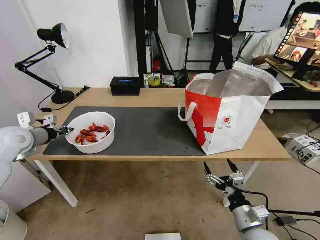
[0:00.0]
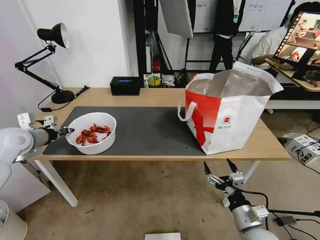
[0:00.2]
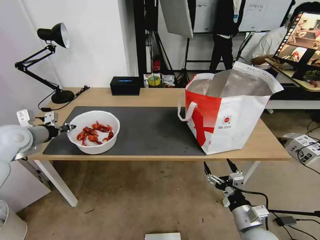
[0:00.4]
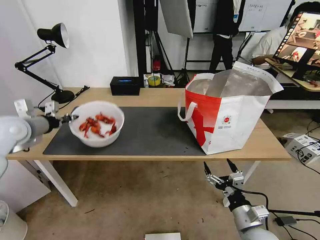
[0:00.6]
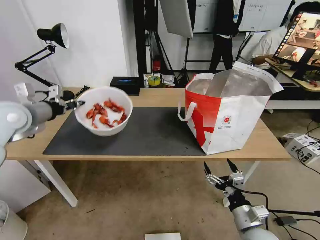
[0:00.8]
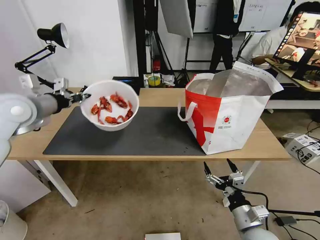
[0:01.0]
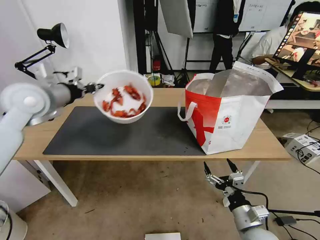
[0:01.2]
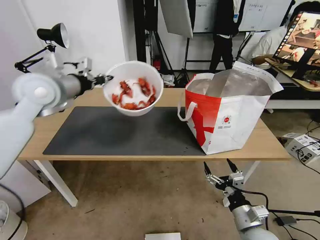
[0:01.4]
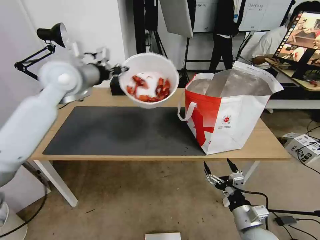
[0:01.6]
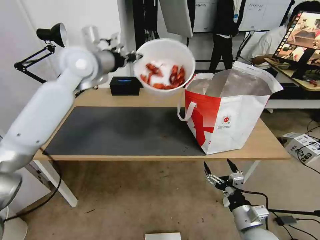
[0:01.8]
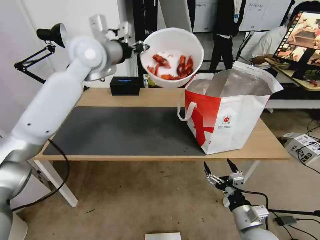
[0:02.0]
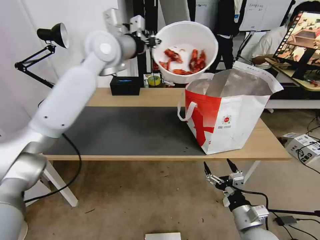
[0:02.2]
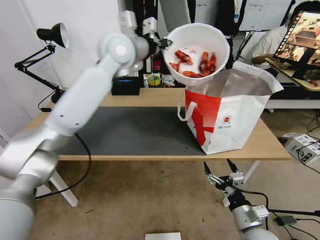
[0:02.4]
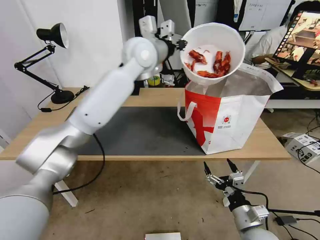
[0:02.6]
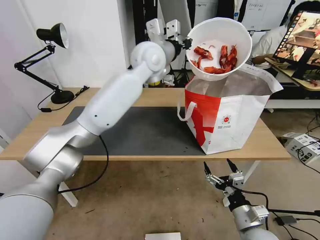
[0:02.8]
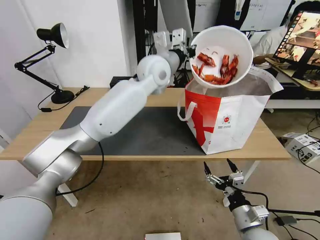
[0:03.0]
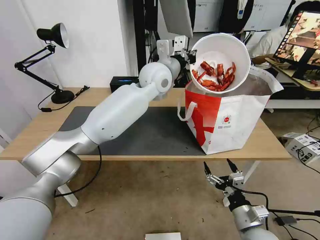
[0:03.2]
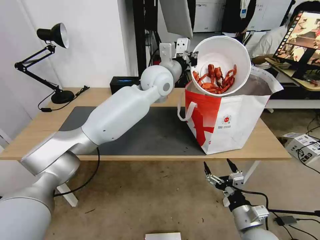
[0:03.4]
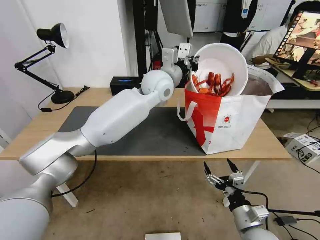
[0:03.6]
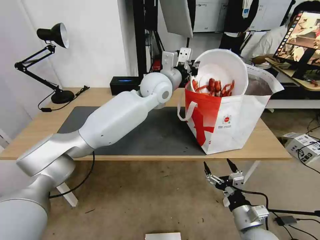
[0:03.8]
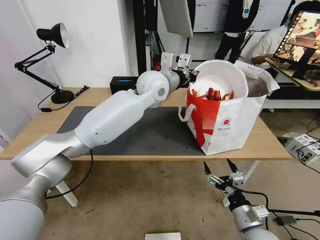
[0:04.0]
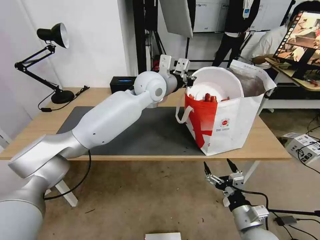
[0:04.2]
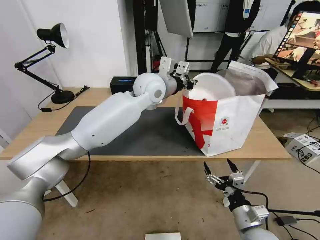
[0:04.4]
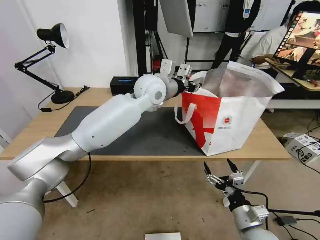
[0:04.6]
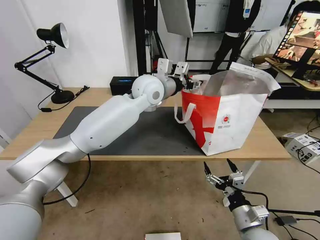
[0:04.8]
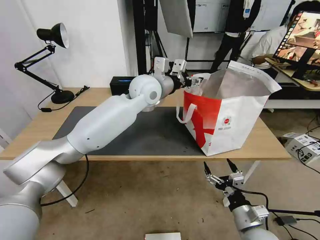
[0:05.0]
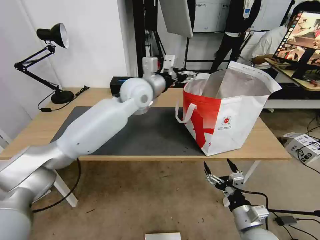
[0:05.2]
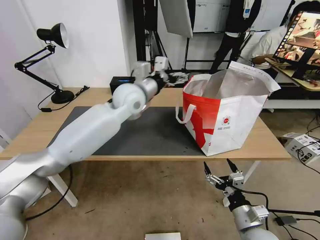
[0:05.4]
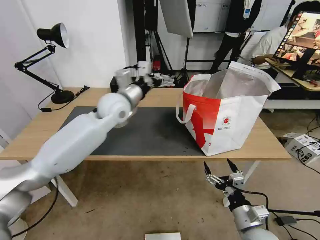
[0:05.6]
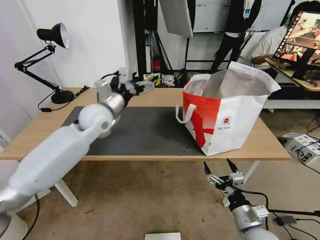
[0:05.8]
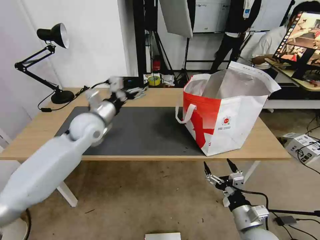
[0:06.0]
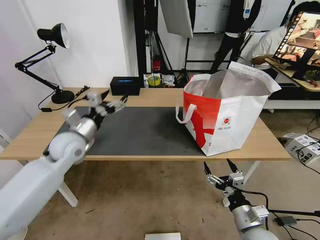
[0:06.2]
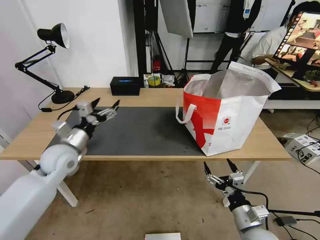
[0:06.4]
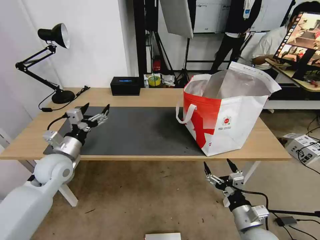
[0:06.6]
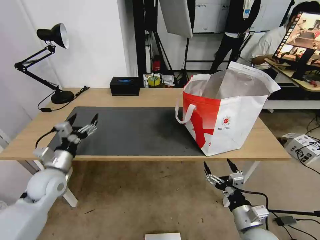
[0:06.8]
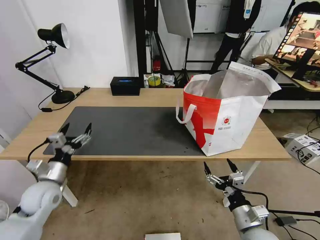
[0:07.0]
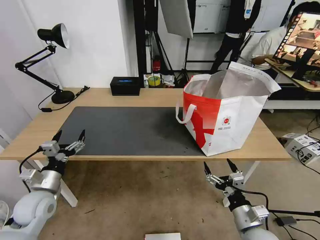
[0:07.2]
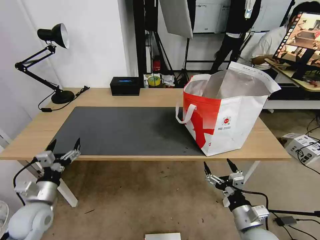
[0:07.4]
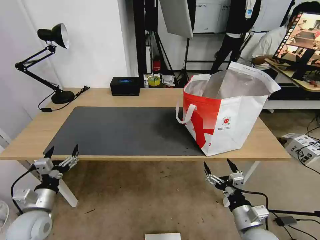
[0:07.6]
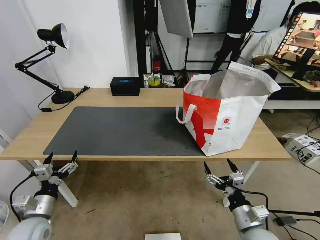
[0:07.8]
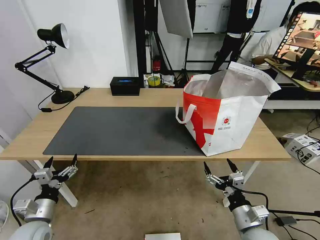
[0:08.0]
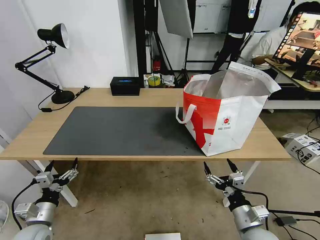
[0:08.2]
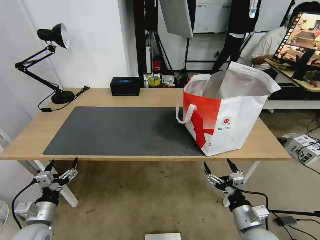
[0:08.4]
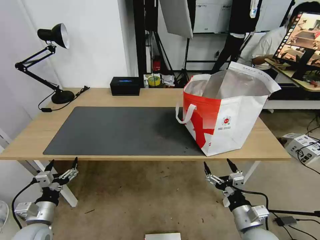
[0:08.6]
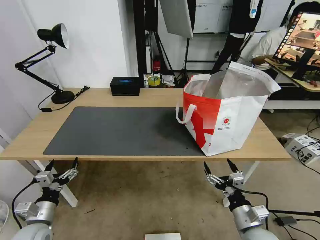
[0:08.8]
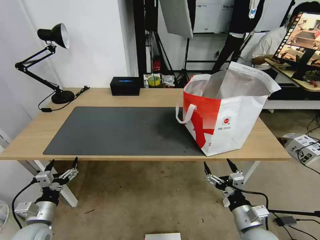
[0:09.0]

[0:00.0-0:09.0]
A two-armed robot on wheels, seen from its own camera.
Task of the whole recording: Pick up the trash from the table and place it into the takeout bag.
0:00.0 to 0:01.6: The left gripper is displaced to the right and upward by roughly 25 cm.
0:01.6 to 0:03.0: The left gripper travels to the right by roughly 25 cm.
0:04.4 to 0:06.0: The left gripper heads to the left and downward, covering about 20 cm, and opens its fingers.
0:06.0 to 0:07.6: The left gripper heads backward, downward and to the left, covering approximately 35 cm.
0:07.6 to 0:09.0: There are only small adjustments of the grippers.

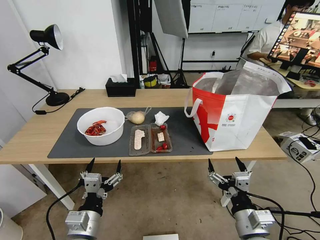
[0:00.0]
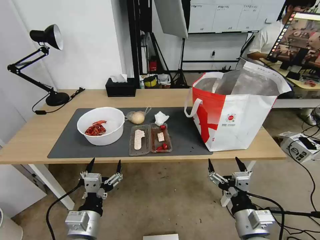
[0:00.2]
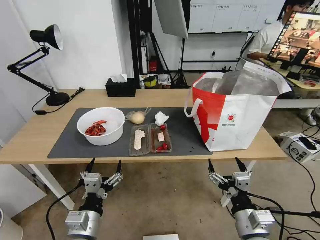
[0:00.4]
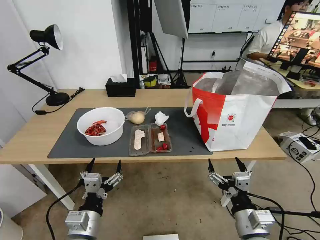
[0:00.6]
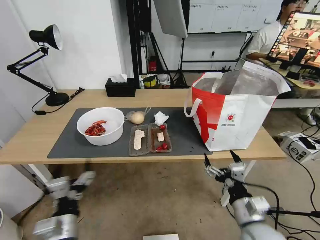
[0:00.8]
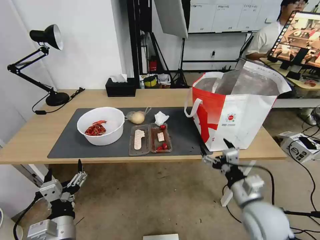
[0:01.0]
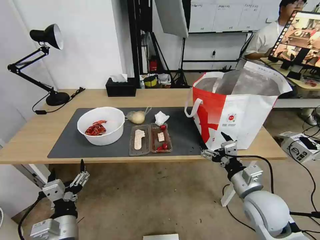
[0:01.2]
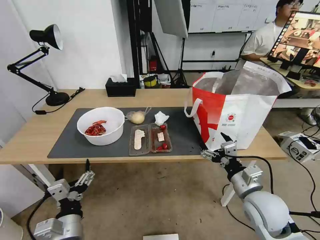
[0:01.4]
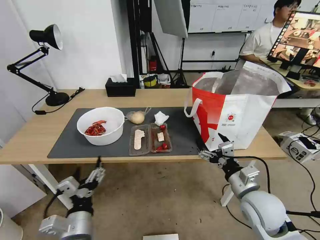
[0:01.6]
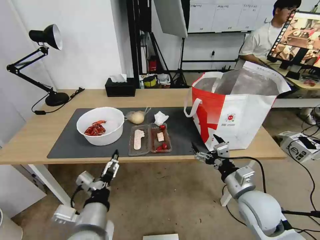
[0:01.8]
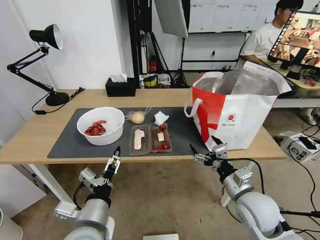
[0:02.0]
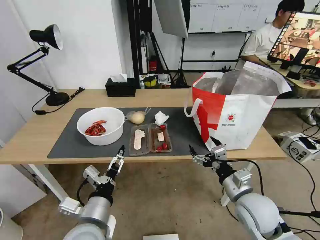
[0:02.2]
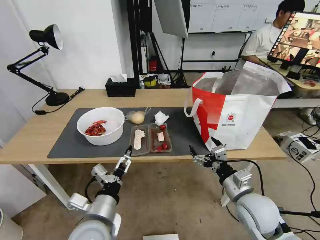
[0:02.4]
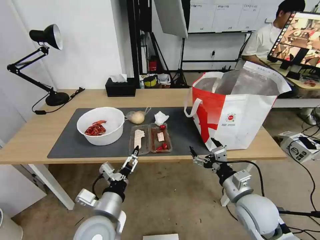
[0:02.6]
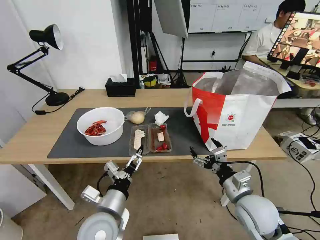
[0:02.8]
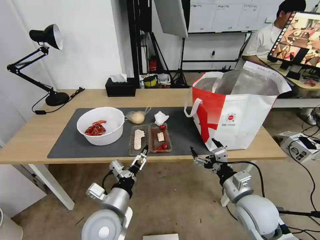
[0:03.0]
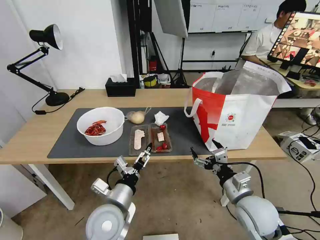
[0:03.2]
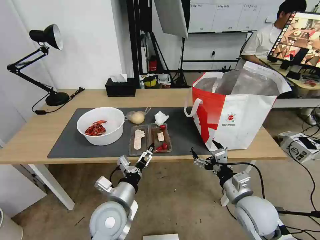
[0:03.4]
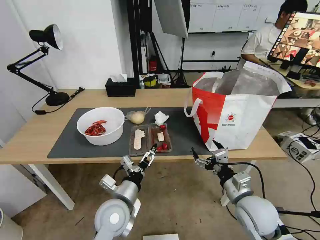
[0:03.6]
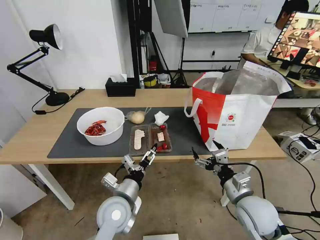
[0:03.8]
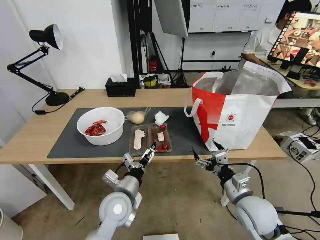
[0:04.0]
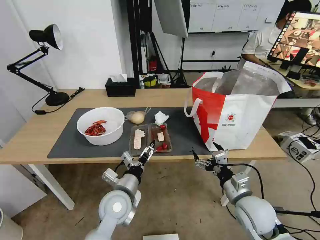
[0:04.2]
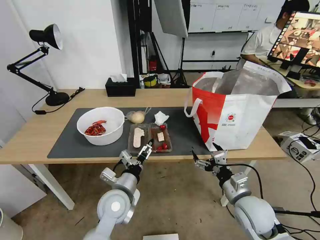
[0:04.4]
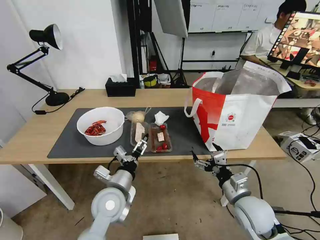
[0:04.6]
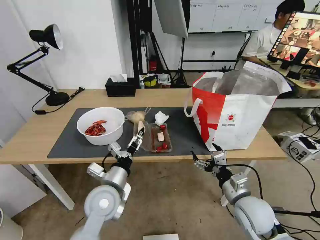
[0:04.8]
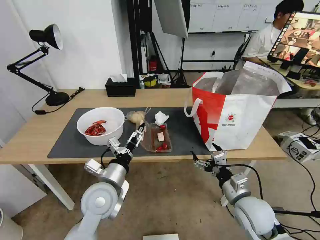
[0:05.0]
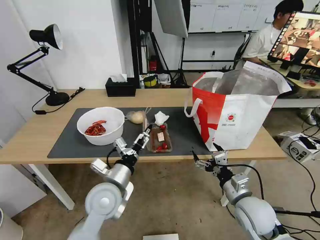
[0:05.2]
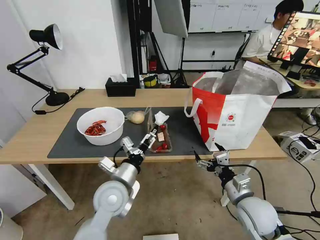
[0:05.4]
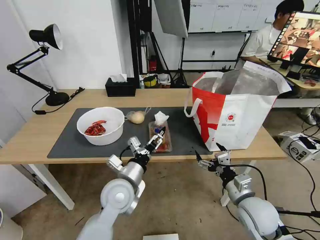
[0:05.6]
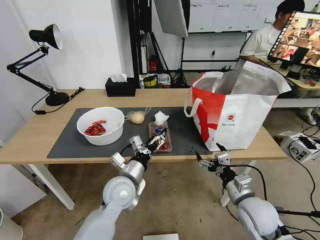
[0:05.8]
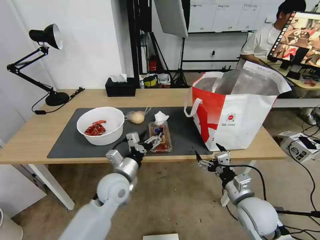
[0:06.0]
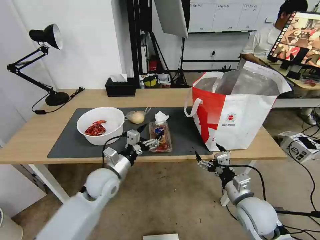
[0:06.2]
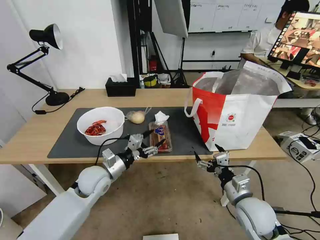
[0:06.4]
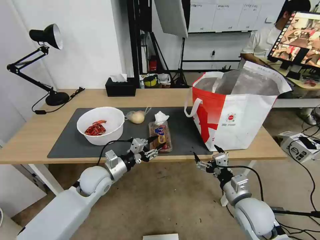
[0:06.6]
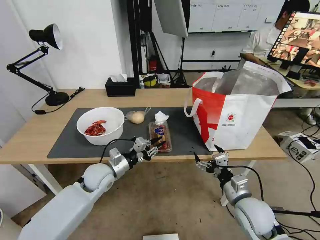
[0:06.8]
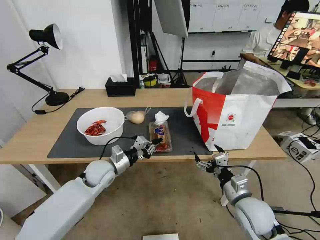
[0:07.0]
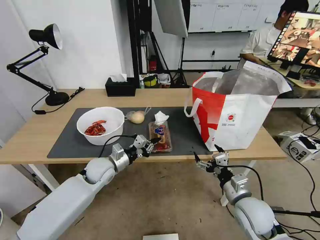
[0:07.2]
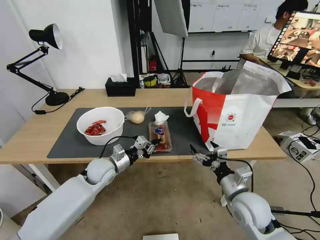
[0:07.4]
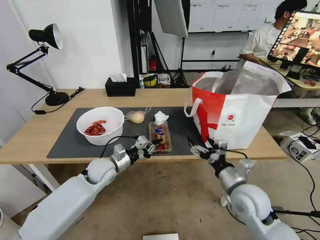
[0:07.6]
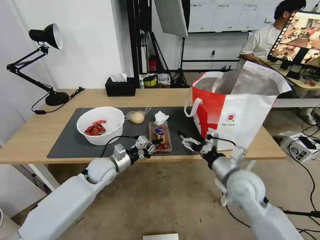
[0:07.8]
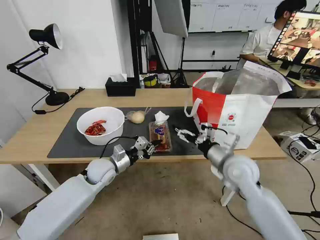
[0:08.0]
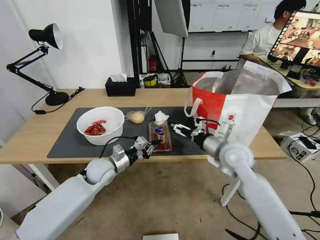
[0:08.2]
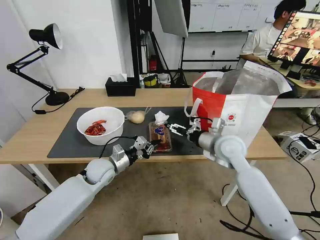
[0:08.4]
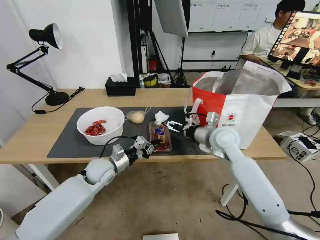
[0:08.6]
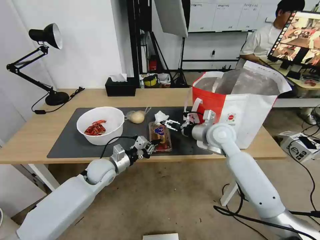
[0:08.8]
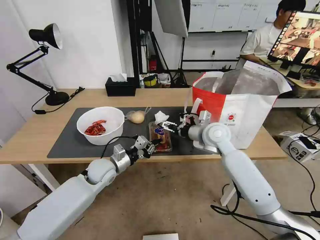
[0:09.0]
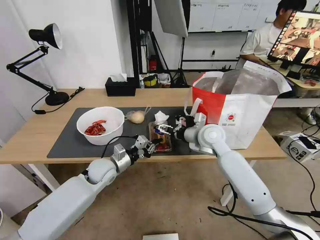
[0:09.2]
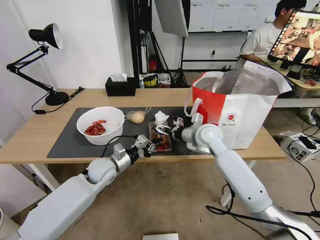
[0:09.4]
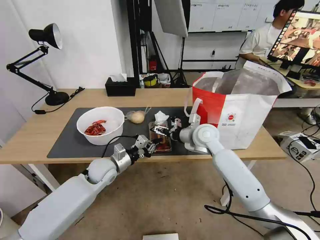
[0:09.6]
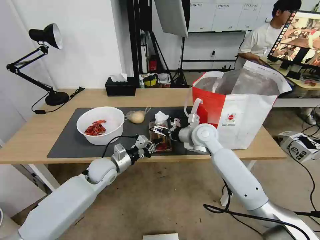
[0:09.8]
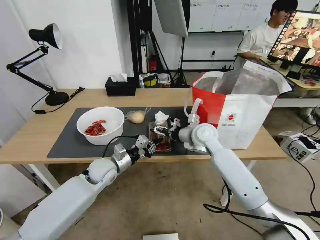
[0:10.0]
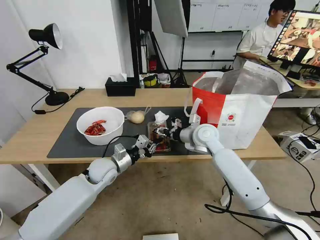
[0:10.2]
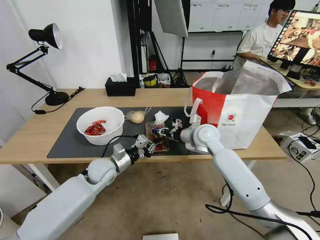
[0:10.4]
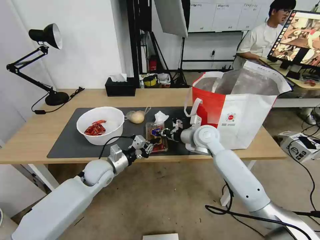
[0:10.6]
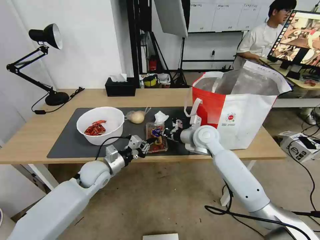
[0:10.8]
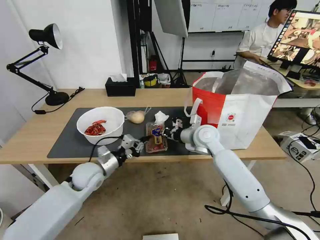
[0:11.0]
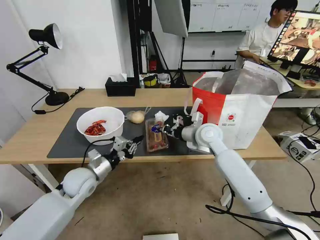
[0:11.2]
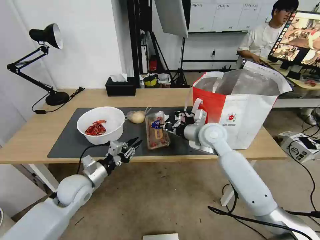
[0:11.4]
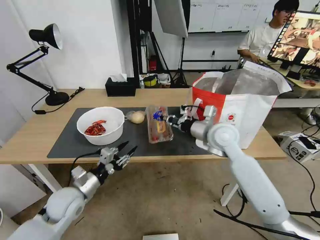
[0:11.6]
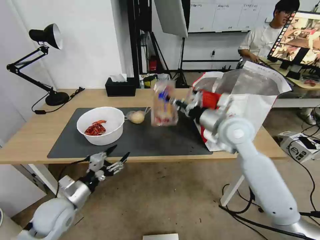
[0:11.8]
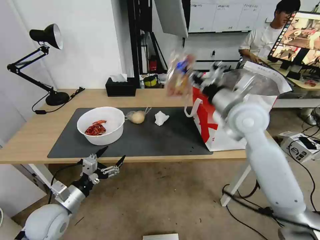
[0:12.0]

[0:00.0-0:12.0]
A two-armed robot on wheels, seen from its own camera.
Task of the whole recording: Pick up the trash from the table and place it into the takeout bag.
0:01.6 to 0:03.0: The left gripper goes about 5 cm forward.
0:03.0 to 0:04.4: The left gripper goes about 5 cm forward.
0:04.4 to 0:06.0: The left gripper moves about 5 cm.
0:06.0 to 0:07.6: The left gripper shifts about 10 cm forward and to the left, and closes its fingers.
0:07.6 to 0:09.0: The right gripper travels forward by about 20 cm.
0:09.0 to 0:10.4: The right gripper closes its fingers.
0:10.4 to 0:12.0: The right gripper heads upward and backward, covering approximately 15 cm, and closes. Meanwhile the left gripper goes some 20 cm backward and to the left, and opens up.

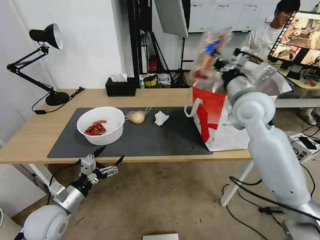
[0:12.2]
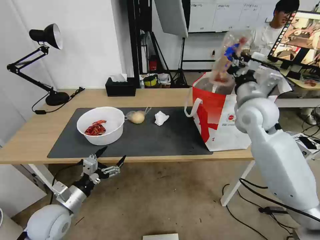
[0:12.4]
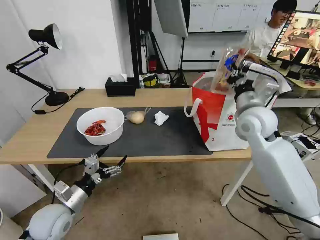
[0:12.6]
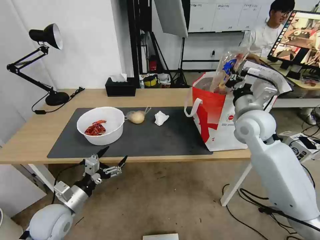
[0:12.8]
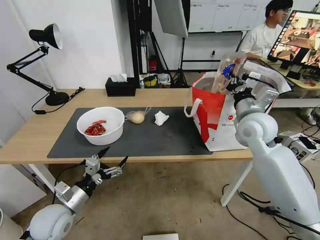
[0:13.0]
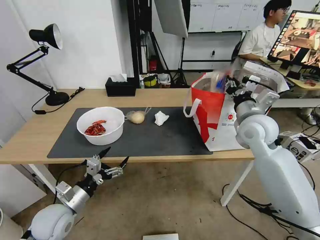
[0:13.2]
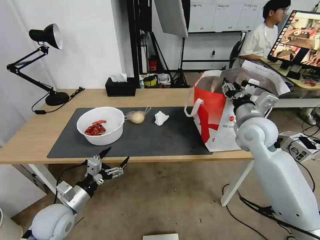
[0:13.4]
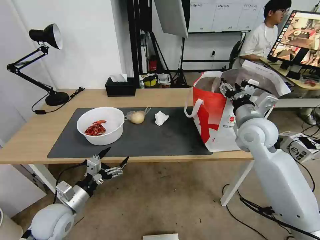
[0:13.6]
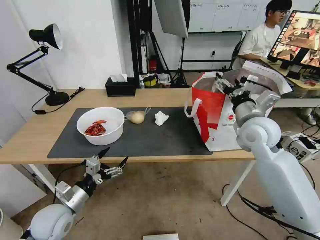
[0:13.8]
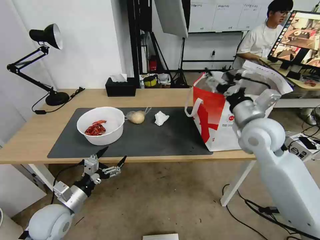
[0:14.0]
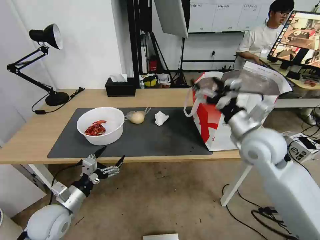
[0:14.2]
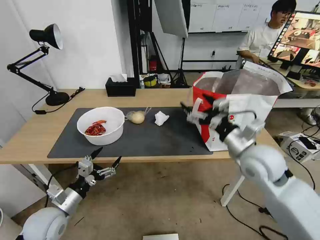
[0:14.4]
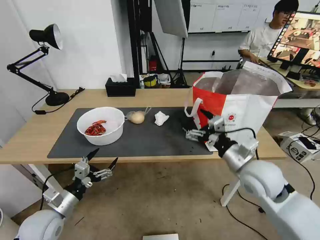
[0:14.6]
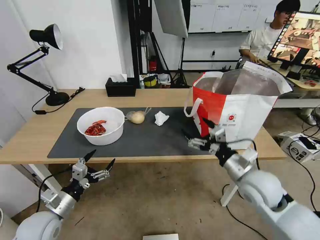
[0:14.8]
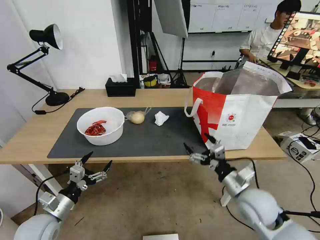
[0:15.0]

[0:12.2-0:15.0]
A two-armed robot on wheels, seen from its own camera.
Task of the whole recording: Pick up the trash from the table and place it into the takeout bag.
0:12.2 to 0:13.6: The right gripper moves downward, roughly 5 cm, and opens its fingers.
0:13.6 to 0:15.0: The right gripper shifts about 20 cm backward and downward. Meanwhile the left gripper moves some 5 cm.
